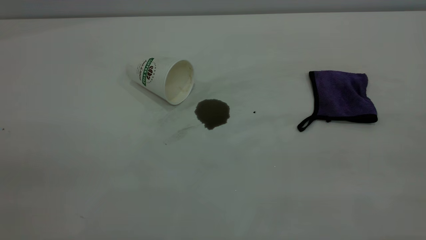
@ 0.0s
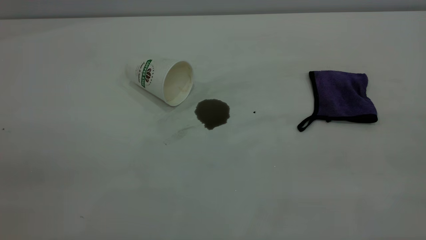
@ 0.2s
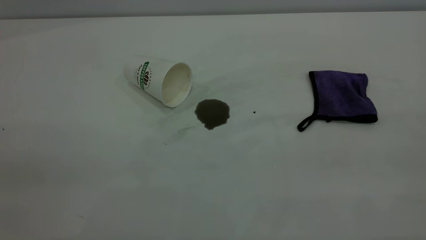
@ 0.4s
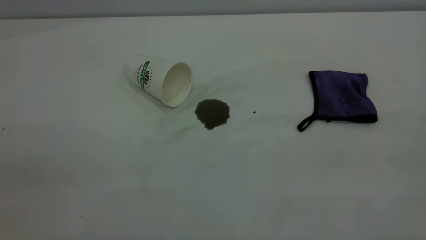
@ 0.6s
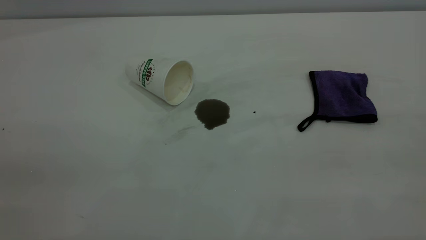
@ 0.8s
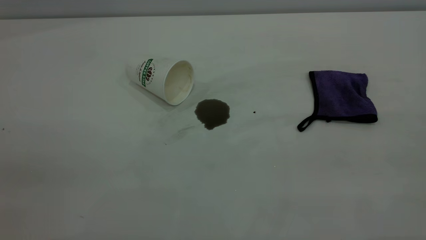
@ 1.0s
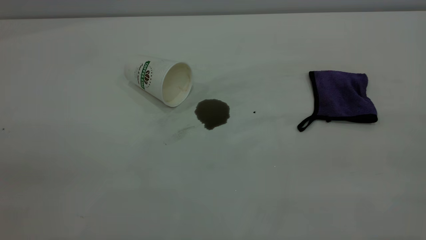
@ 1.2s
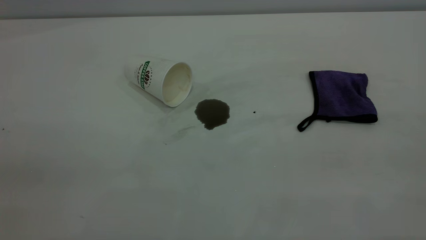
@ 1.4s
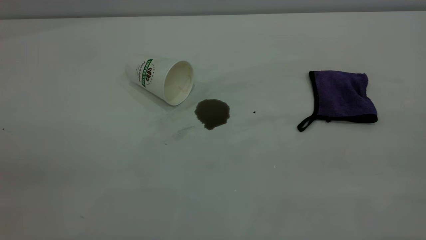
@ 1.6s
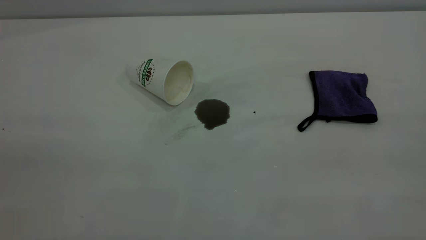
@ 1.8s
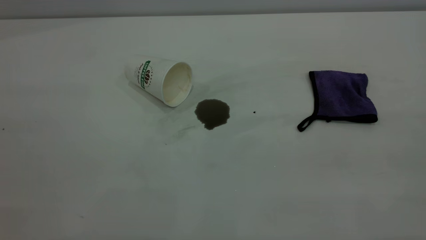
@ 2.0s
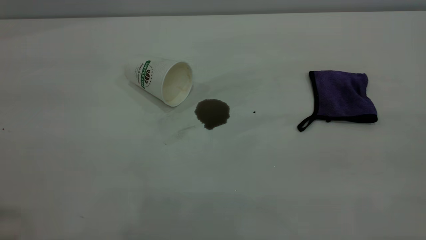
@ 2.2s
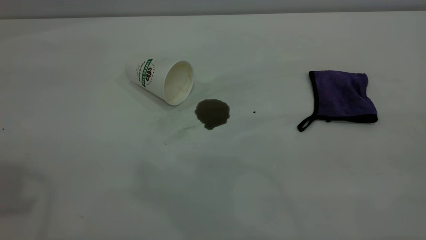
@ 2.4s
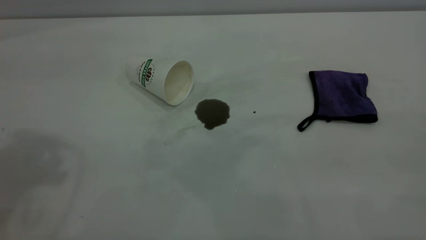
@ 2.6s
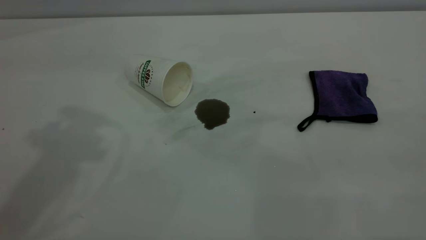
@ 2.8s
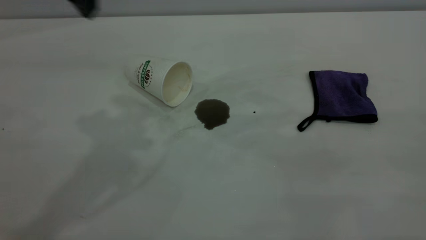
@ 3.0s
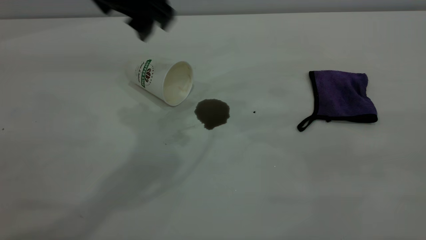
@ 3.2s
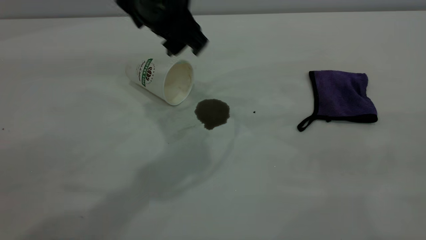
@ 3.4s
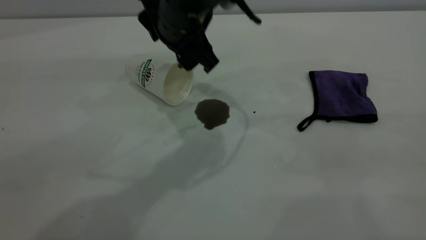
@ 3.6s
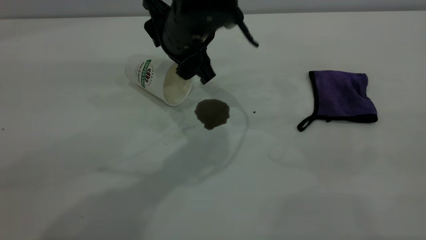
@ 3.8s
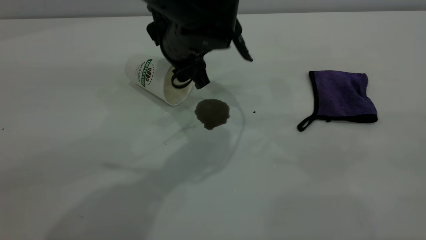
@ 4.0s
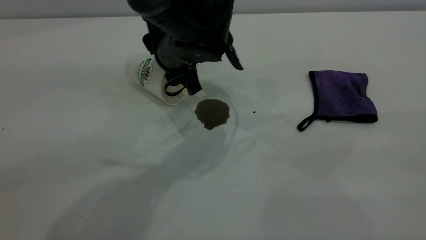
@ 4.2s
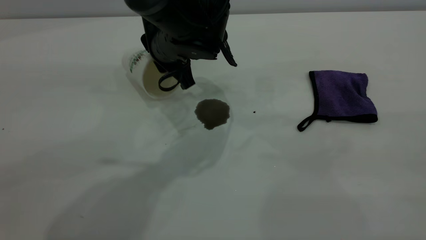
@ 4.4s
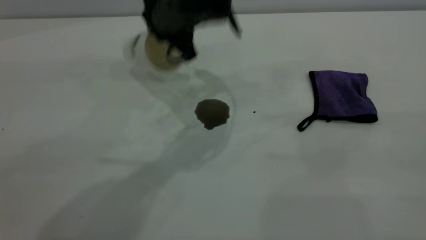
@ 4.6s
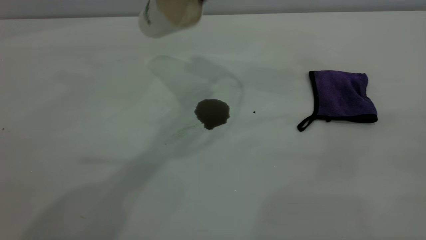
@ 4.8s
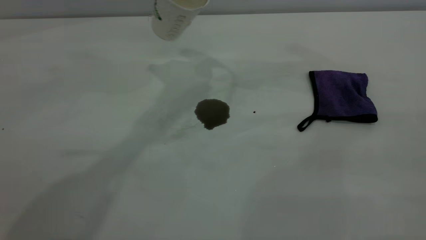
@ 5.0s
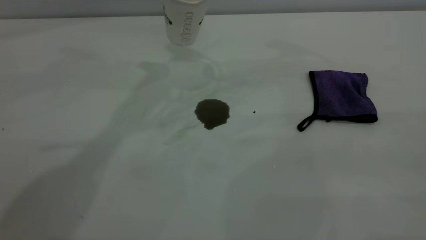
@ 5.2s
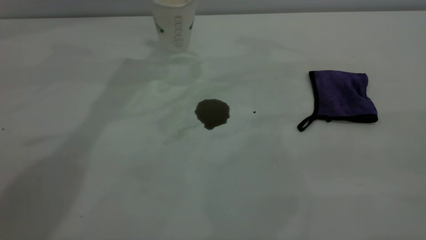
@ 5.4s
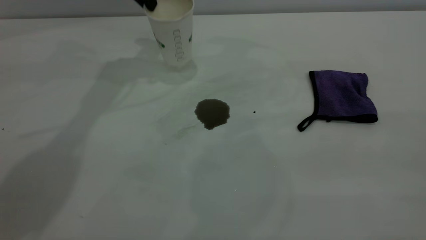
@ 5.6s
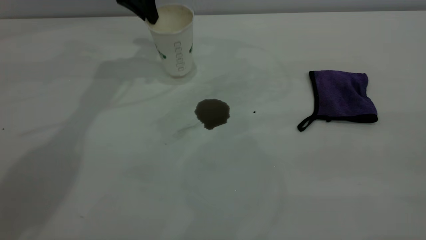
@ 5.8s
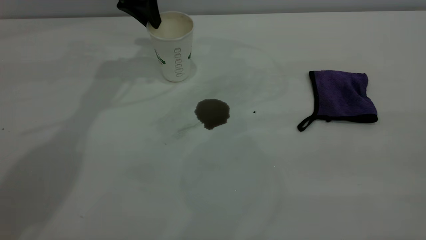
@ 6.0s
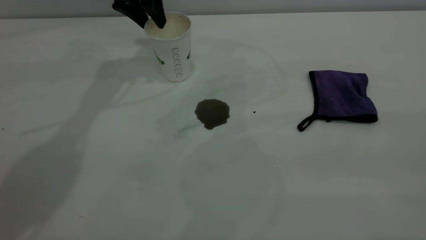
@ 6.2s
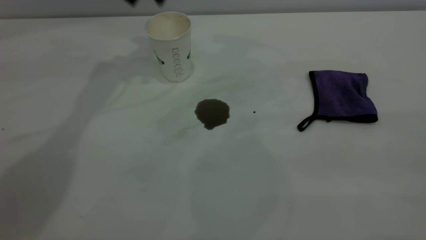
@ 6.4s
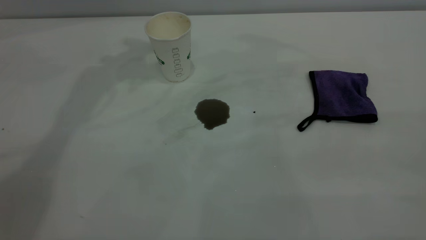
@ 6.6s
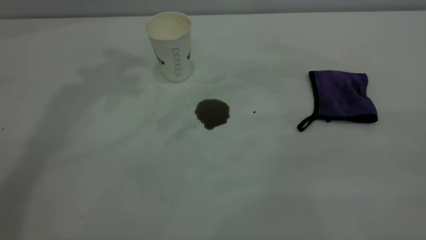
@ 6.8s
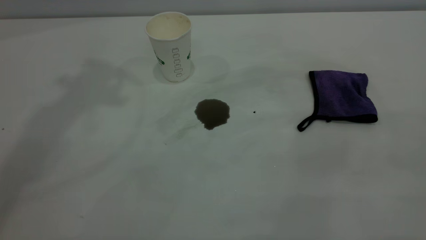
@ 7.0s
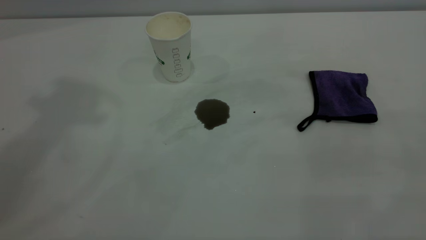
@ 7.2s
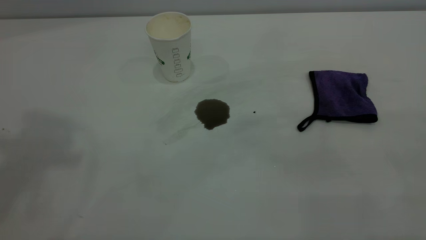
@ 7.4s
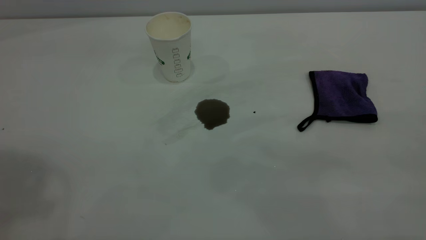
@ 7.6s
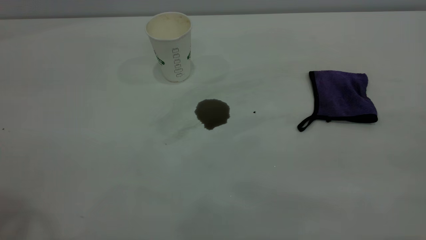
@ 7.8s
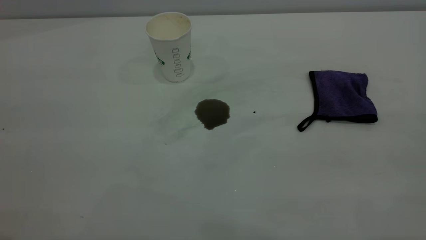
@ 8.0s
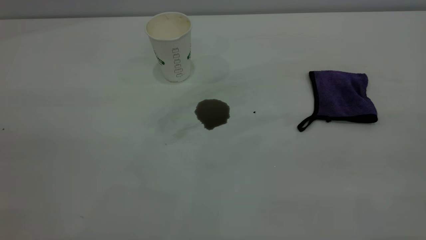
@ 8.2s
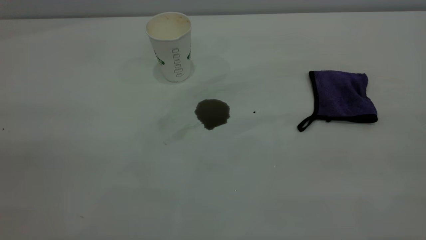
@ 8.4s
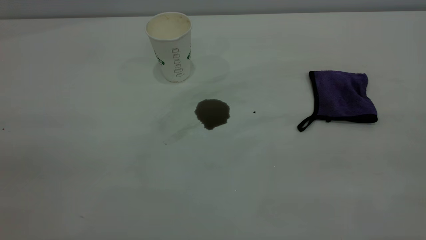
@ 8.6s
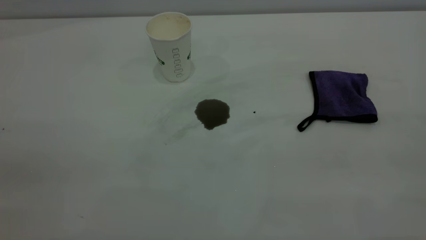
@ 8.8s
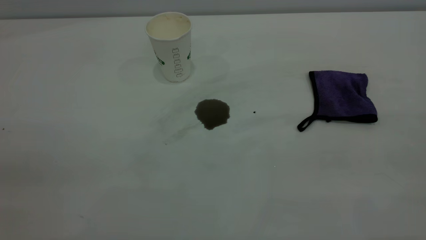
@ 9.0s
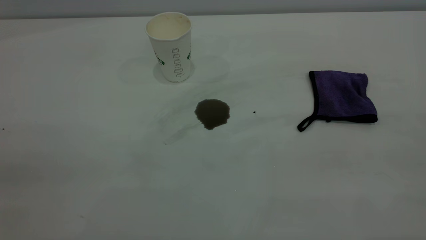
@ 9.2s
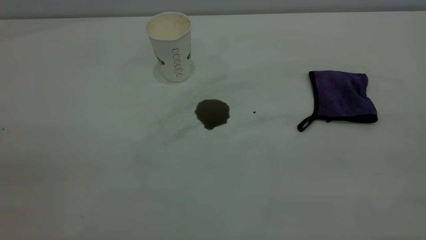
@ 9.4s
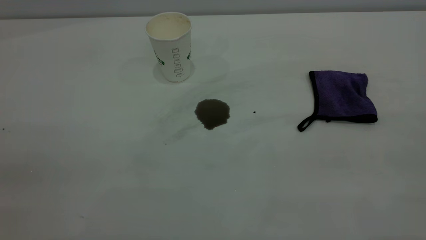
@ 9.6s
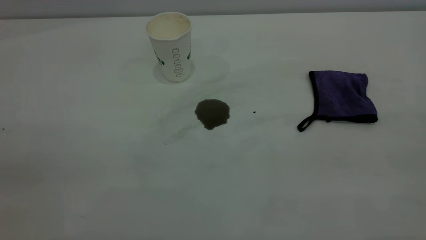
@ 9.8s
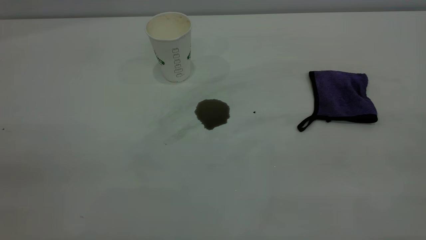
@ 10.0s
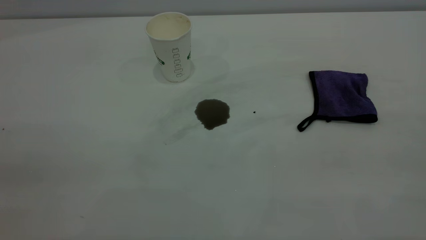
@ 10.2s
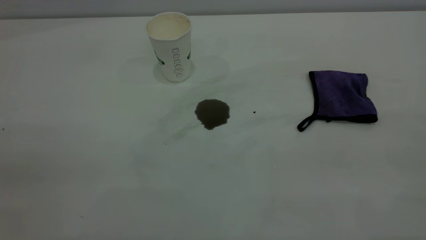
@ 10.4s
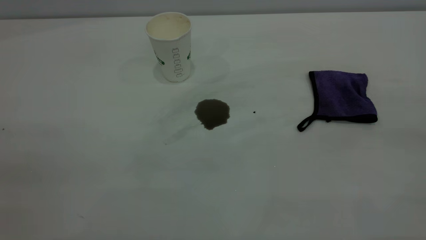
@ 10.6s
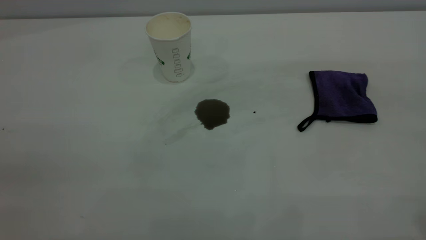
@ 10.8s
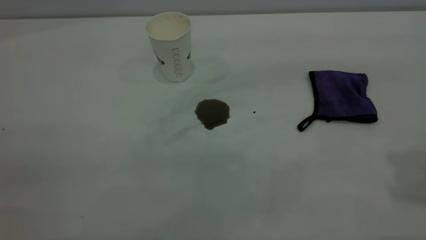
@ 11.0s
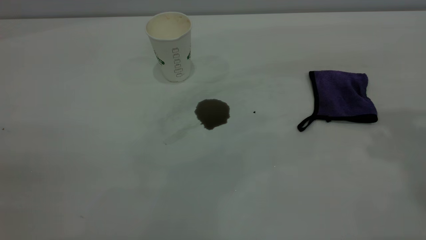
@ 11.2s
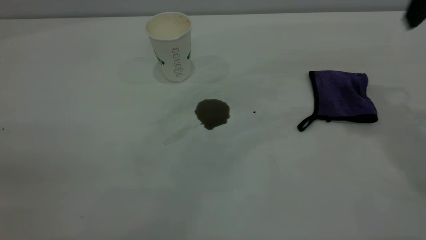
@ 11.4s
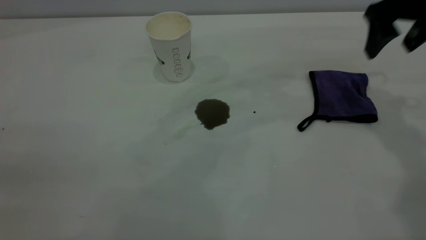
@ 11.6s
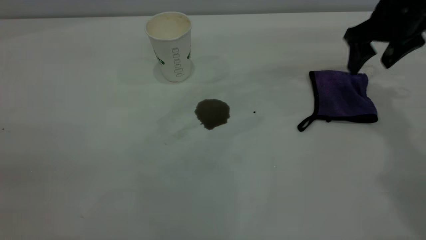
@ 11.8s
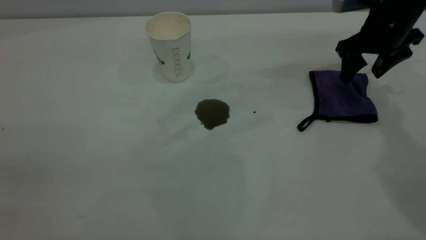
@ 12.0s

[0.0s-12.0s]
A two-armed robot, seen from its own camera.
Task of the whole recording: the left gripper pick up the fallen cup and place it upright, the right gripper grasp the purple rag and wipe the coffee stain on the table, the right gripper put the purple rag back in its original position.
Step, 0.0s to 6.2s: Stand the paper cup upright.
0.0s to 1.6s: Both grippers stay about where they are.
3.0s to 4.4s: The left gripper goes approximately 20 cm downward and to the right, and closes.
4.4s to 6.0s: The left gripper shifts some 20 cm forward, to the left and upward.
6.0s to 7.6s: The left gripper moves backward and upward, approximately 50 cm.
9.0s to 10.4s: Neither gripper changes place.
10.4s to 12.0s: The right gripper heads forward and downward, covering approximately 50 cm, and opens.

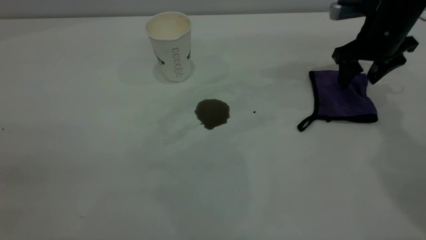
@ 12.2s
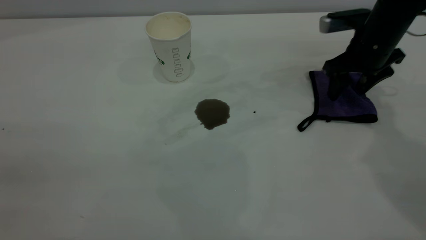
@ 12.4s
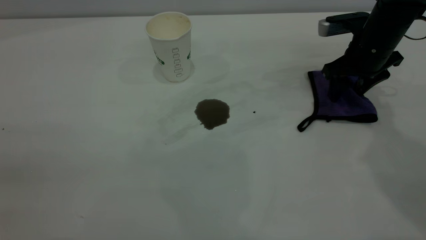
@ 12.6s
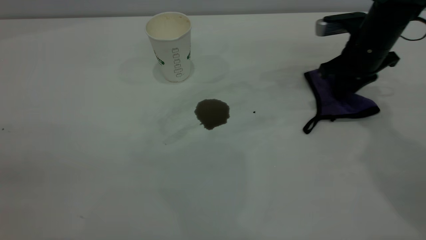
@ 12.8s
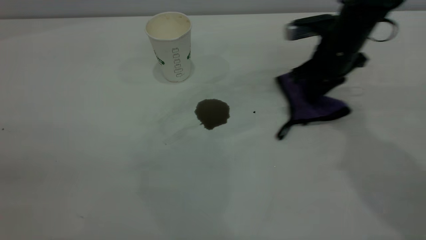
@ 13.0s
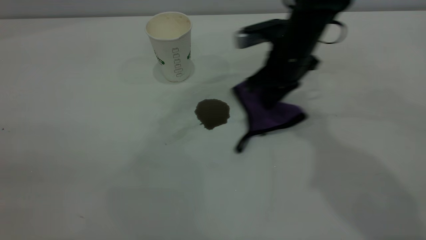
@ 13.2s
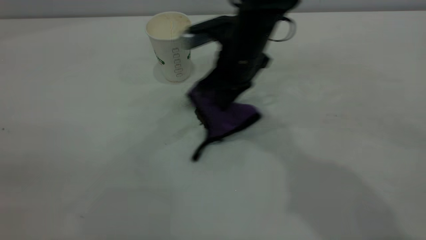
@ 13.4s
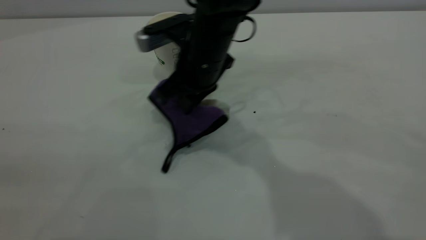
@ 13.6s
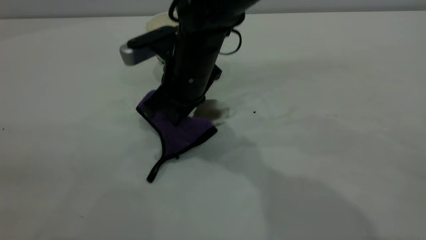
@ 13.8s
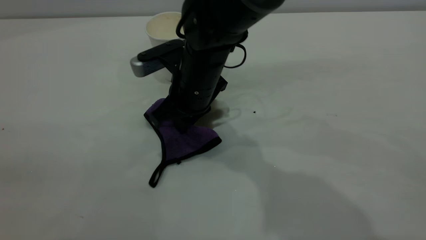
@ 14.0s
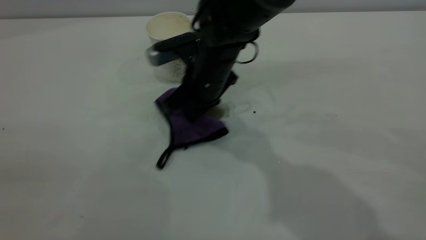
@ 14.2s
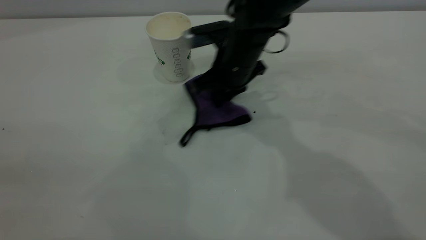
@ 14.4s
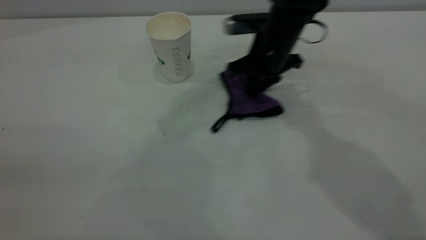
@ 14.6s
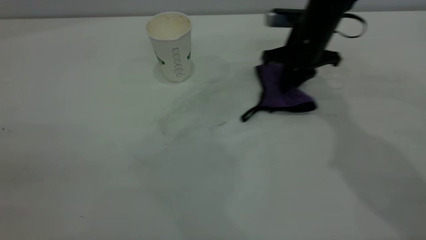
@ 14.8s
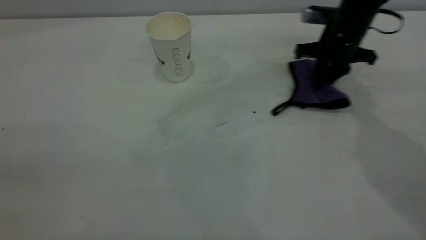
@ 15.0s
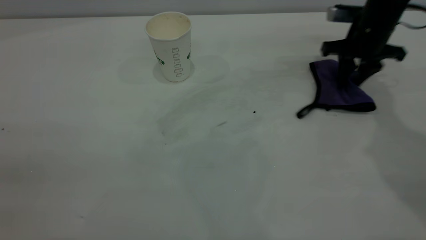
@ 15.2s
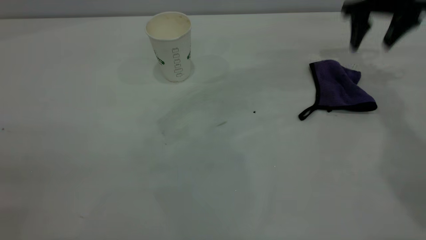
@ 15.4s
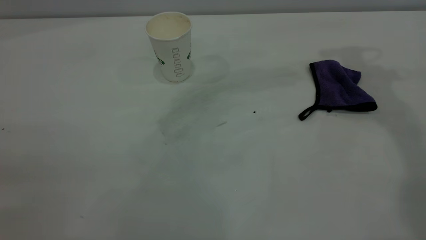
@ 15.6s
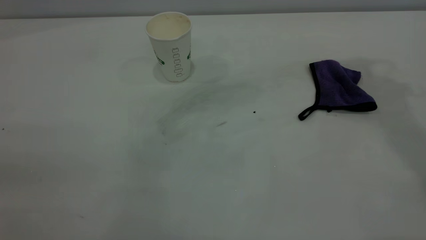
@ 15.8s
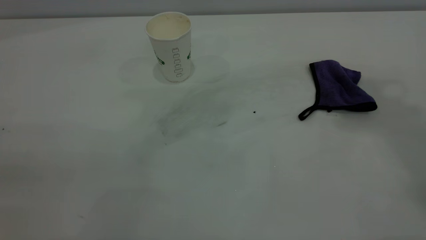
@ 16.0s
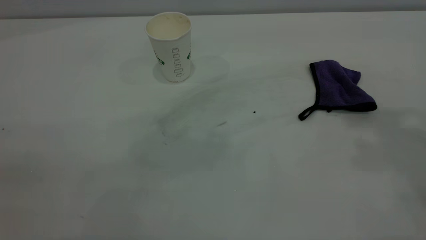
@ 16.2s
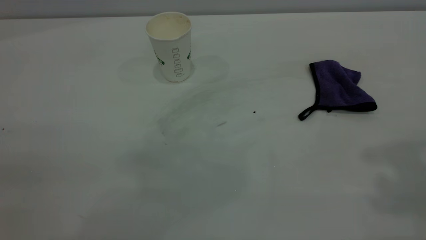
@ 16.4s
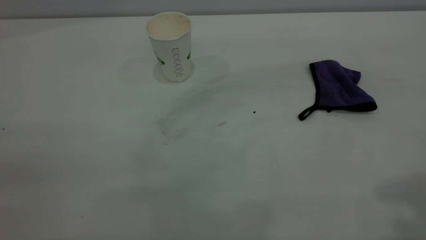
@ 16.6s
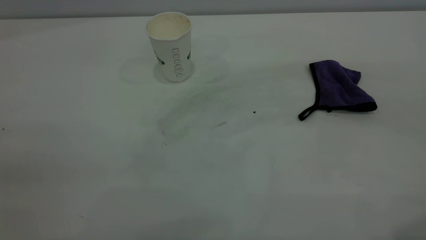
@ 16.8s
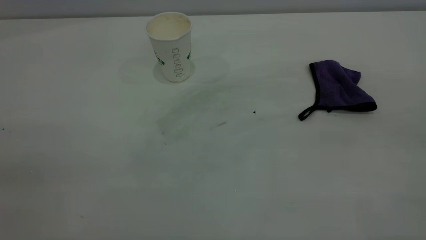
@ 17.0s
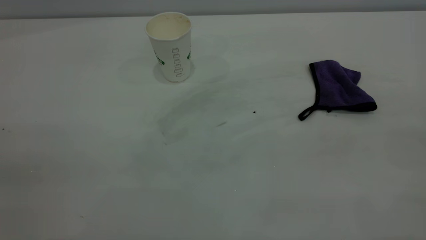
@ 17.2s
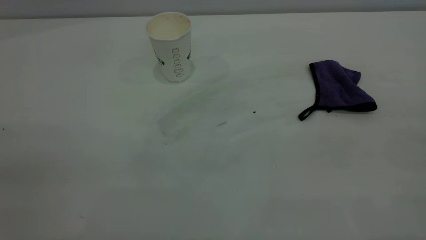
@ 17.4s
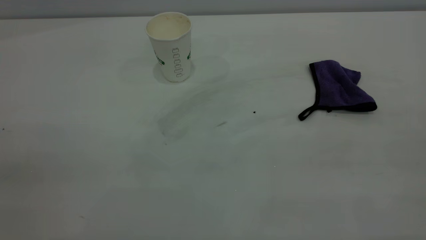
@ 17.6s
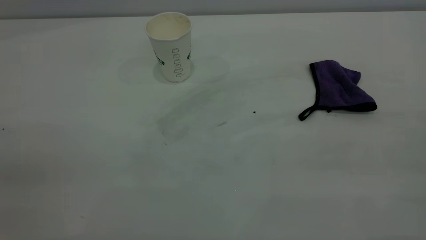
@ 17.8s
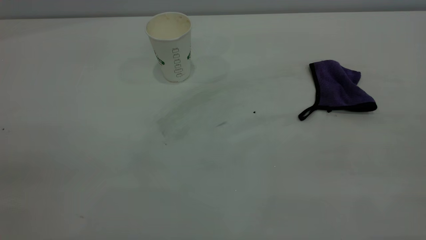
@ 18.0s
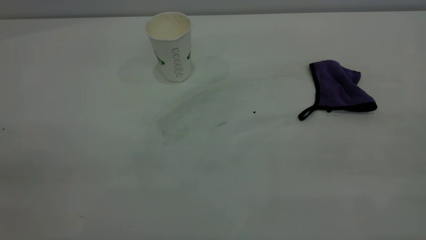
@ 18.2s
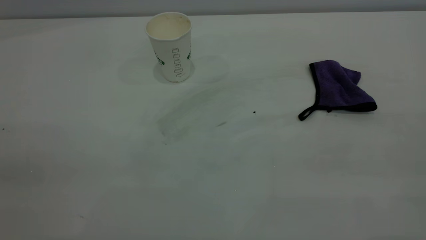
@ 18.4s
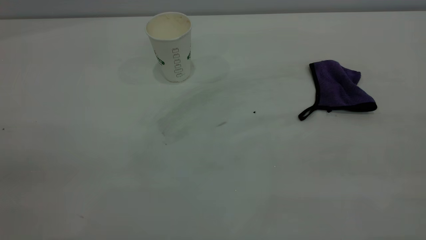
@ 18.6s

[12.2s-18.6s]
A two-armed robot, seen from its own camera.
Task of the whole recording: the left gripper pick up the fallen cup and place it upright, the right gripper grasp the purple rag and wipe the coffee stain on the table, the right gripper put the purple rag back in its original position.
Step, 12.2s to 15.2s: Wipe the stains off the table with a rag.
12.2s to 13.8s: The right gripper is displaced to the left by about 30 cm, and closes its fingers.
13.8s to 15.4s: The right gripper goes approximately 30 cm to the right, and opens up.
15.4s to 17.0s: The right gripper is displaced backward and upward by some 50 cm.
